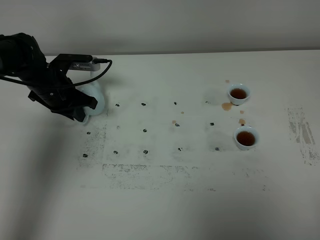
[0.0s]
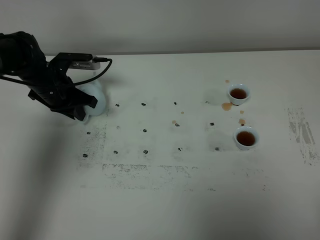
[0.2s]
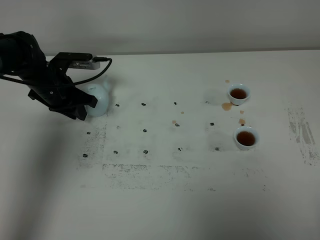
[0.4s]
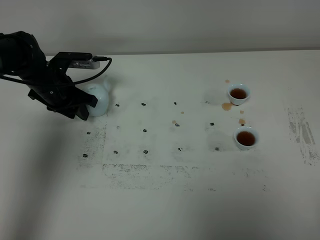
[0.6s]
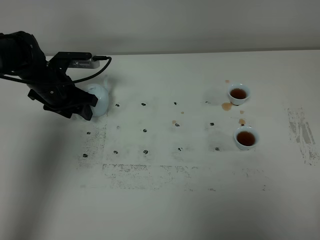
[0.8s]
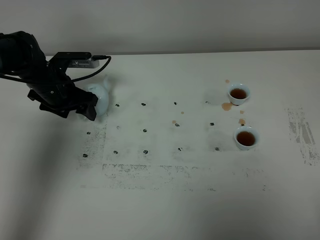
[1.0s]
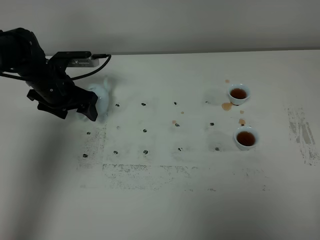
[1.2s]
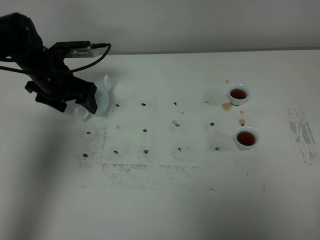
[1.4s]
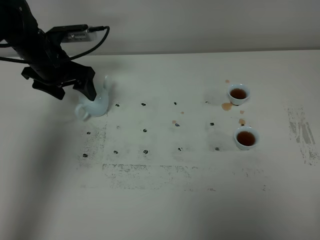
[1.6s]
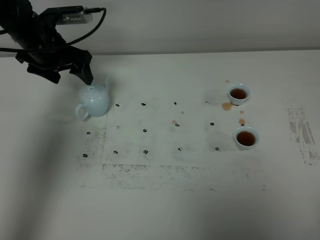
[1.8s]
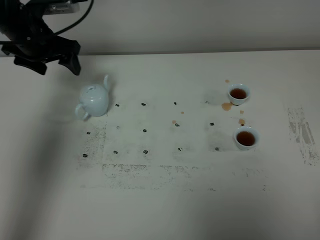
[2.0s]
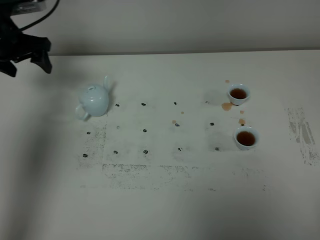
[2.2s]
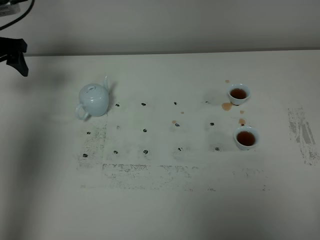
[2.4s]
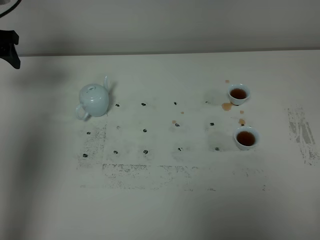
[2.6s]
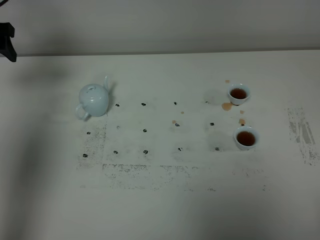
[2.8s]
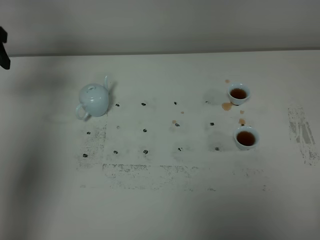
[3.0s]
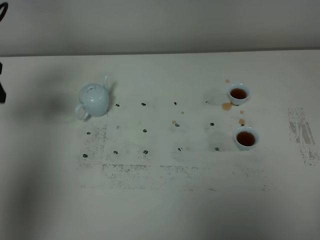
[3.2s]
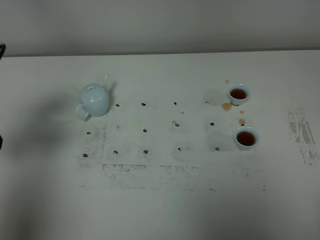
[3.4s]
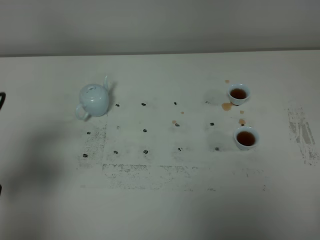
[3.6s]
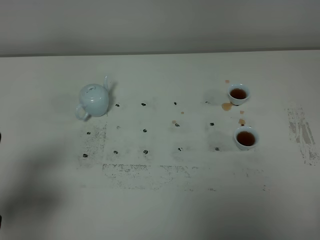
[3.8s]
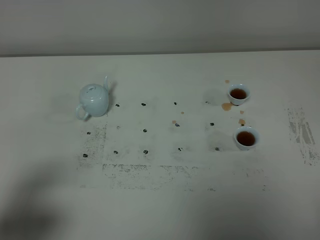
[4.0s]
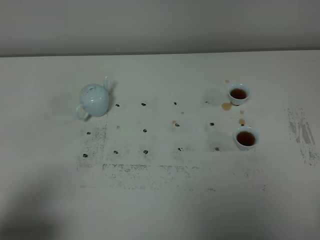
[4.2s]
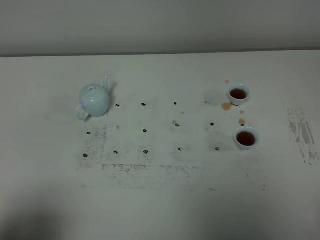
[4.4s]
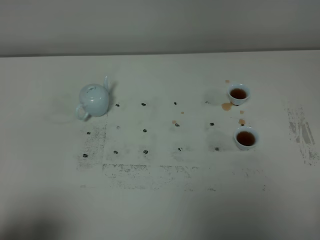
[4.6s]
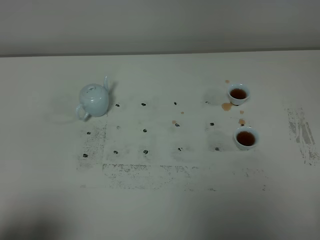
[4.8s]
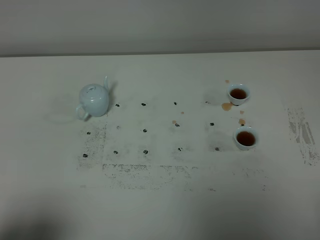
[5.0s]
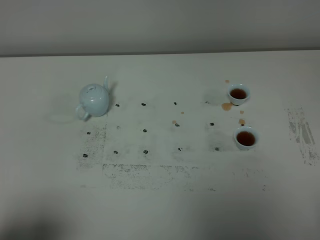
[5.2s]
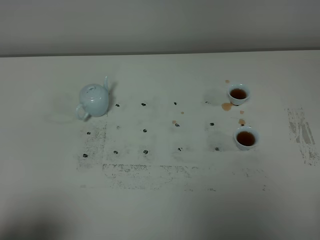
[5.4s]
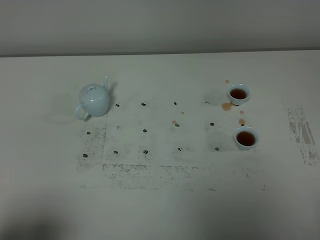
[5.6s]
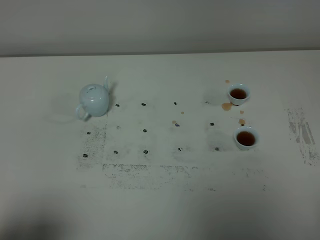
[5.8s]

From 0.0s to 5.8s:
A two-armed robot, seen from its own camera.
Task of the whole recording: grasp the blue porcelain teapot and pour the tea into the two blue porcelain teacups one by one, put the blue porcelain teapot back in its original place.
From 0.0s to 1.4s: The left gripper opens.
From 1.4s to 2.8s: The left gripper heads to the left and upward, covering approximately 15 cm.
From 2.8s to 4.4s: The left gripper goes roughly 40 cm backward.
From 4.4s to 5.8s: Both grippers stay about where they are.

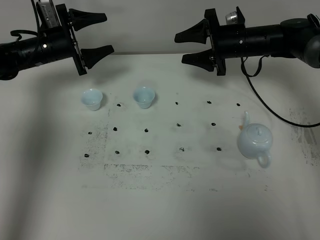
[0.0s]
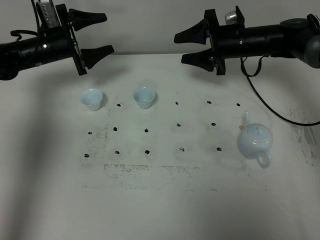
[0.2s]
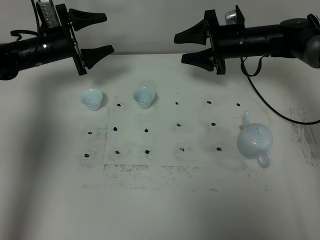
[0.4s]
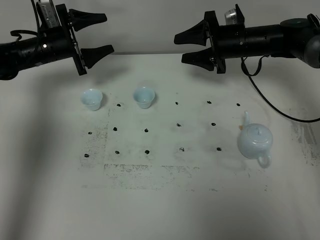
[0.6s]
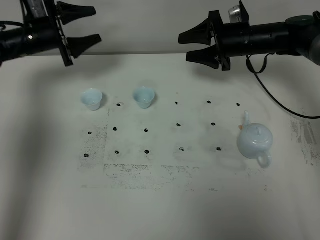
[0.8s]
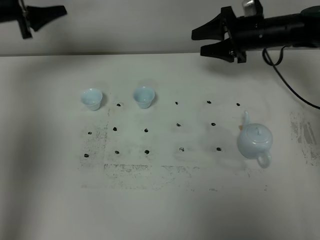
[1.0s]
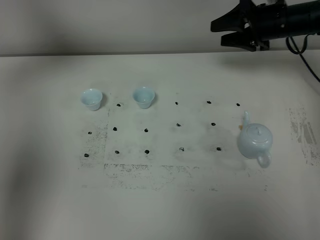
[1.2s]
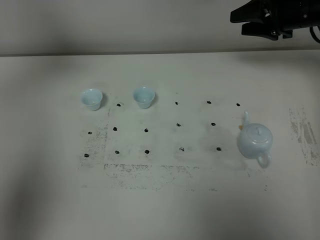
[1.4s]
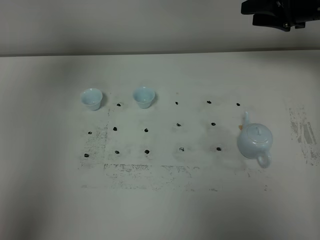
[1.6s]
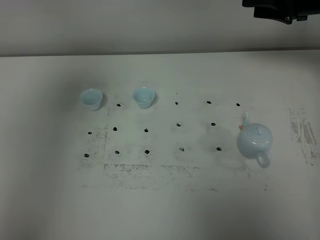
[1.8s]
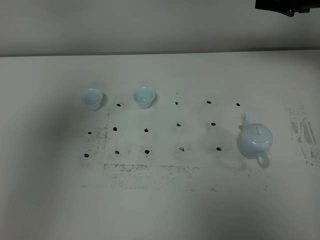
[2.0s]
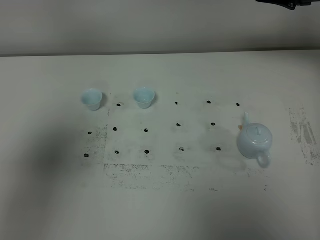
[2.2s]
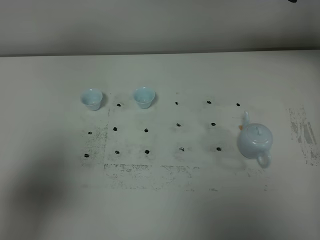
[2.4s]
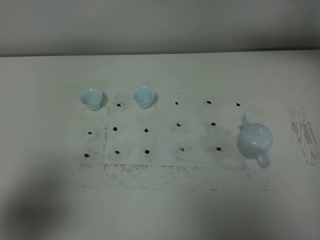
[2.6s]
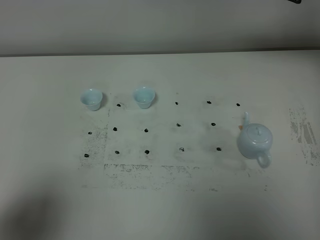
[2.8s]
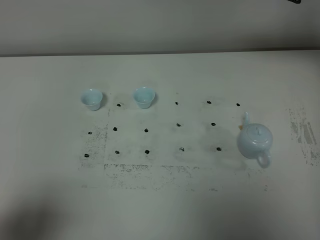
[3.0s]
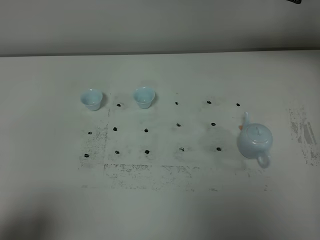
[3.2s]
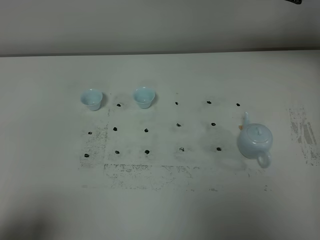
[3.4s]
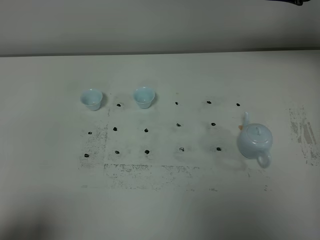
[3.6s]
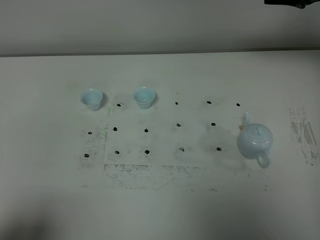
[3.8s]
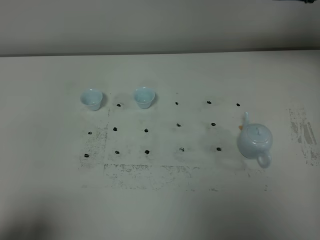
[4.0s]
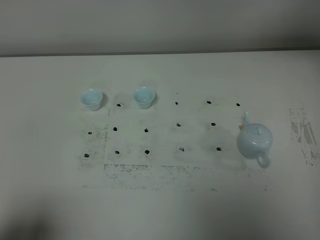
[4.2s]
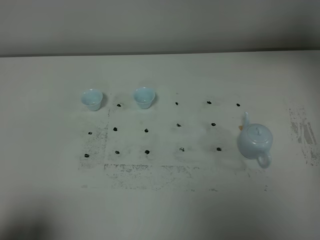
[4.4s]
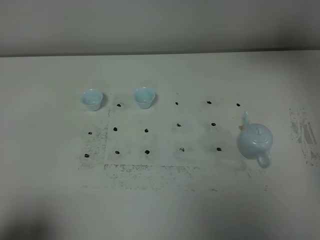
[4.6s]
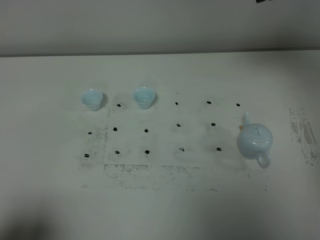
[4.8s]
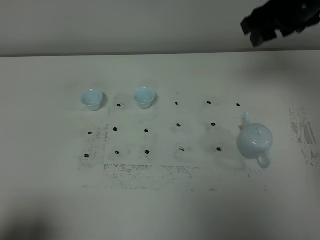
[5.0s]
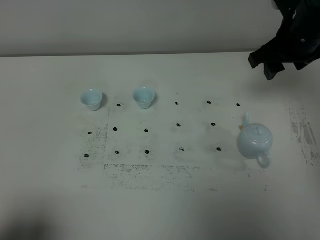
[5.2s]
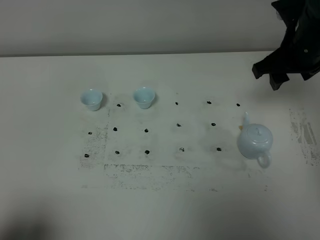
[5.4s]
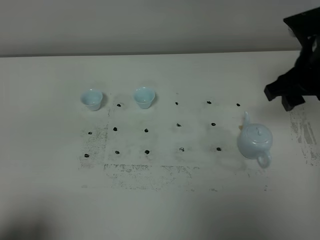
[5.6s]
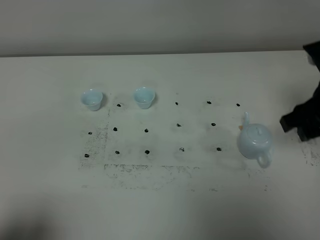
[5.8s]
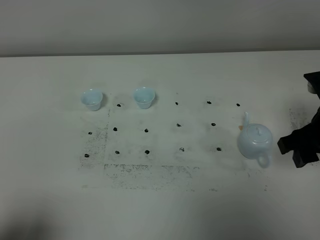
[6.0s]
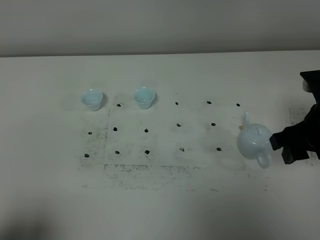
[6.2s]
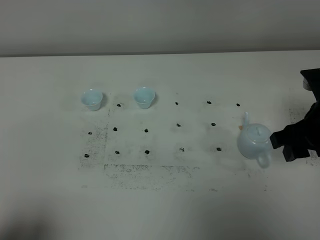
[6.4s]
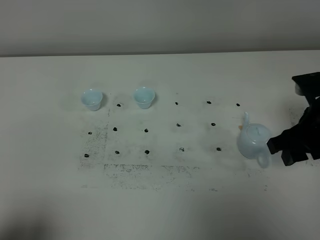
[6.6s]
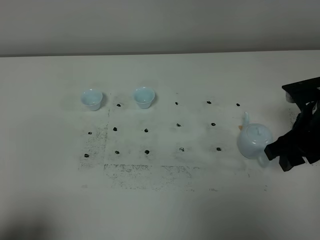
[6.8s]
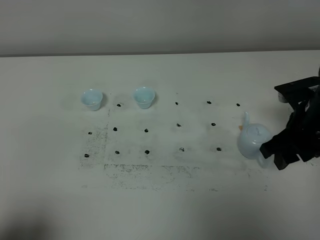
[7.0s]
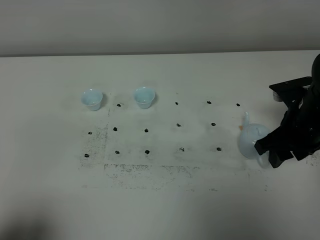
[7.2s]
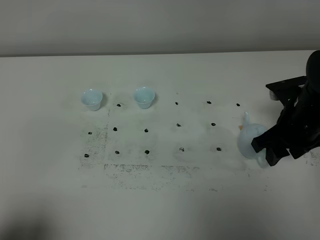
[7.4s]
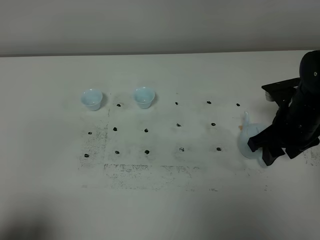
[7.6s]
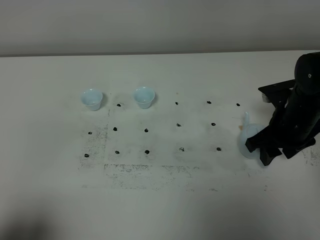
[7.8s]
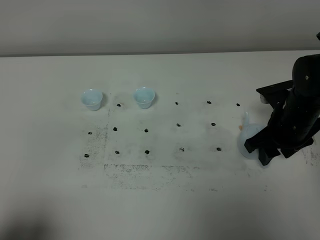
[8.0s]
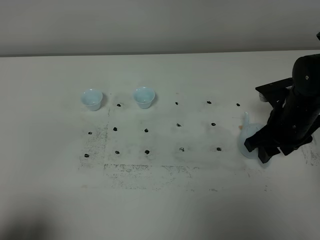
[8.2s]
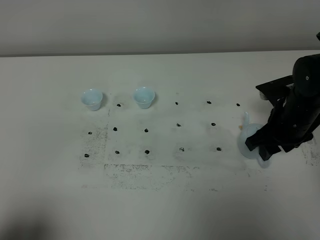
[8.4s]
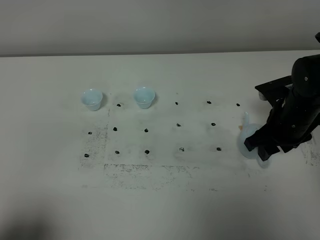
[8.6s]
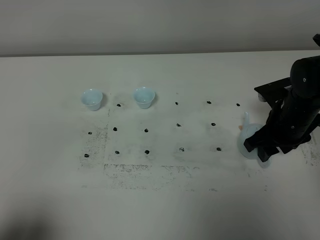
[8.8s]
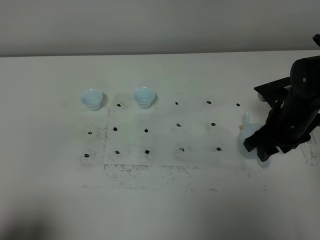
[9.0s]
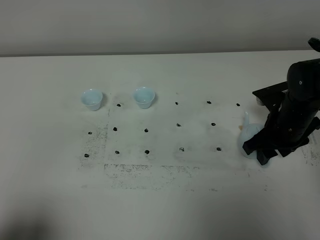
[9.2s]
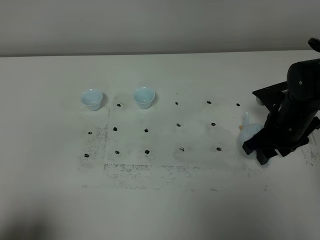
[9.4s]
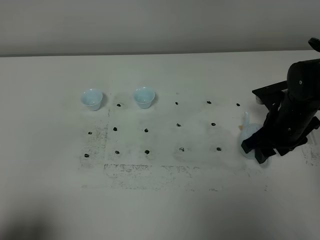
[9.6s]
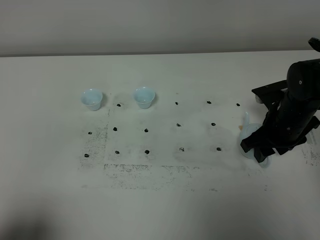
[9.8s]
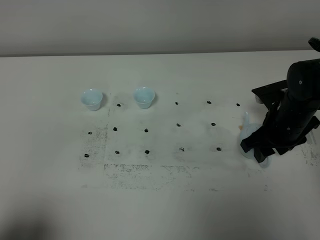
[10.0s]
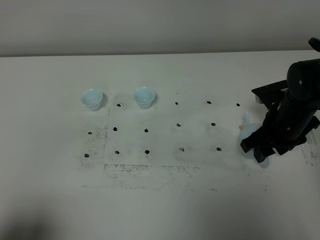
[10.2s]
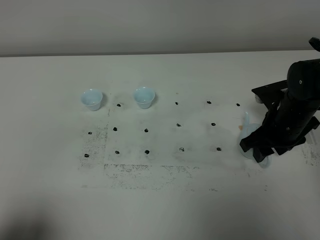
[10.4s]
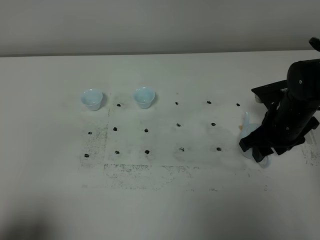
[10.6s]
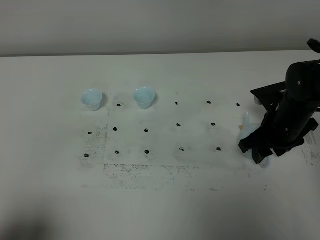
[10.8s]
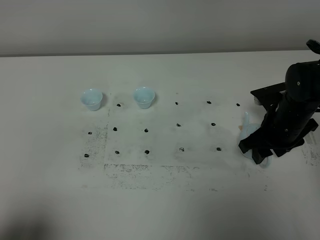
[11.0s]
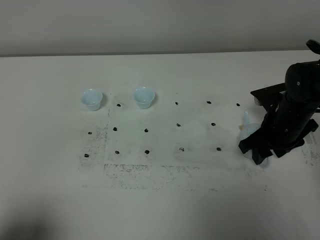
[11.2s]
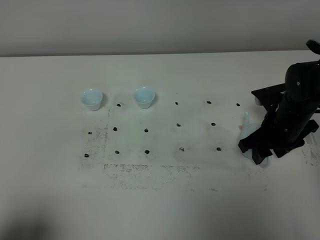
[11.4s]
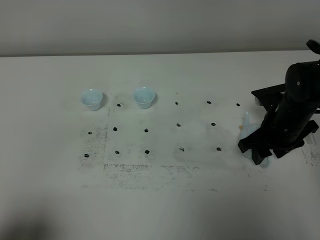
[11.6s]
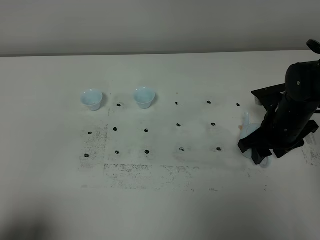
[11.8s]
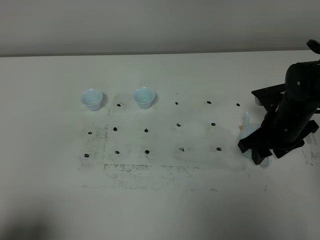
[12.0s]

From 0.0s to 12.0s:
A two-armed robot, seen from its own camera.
Task of the whole recording: grasp the blue porcelain teapot and pour the tea into the two blue porcelain teacups one by one, put the blue porcelain teapot back in its original place.
From 0.0s to 1.6s: The right gripper heads to the right and upward, covering roughly 15 cm, while the left gripper travels upward and backward by about 40 cm.
From 1.6s to 3.0s: The left gripper is displaced backward and downward by approximately 35 cm. The right gripper goes about 5 cm upward.
From 4.4s to 6.0s: The right gripper moves downward and backward, some 25 cm.
From 6.0s to 7.6s: The right gripper goes about 10 cm downward and forward.
From 7.6s to 9.0s: The grippers stay close to where they were, moving slightly.
From 9.0s to 10.4s: Neither gripper changes place.
From 10.4s to 12.0s: Both grippers stay put.

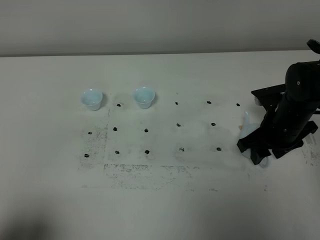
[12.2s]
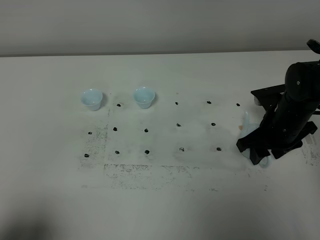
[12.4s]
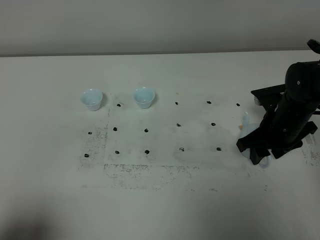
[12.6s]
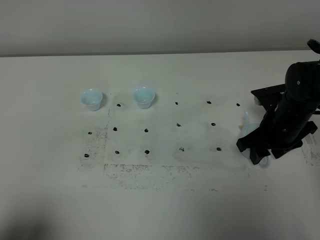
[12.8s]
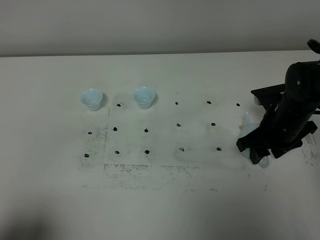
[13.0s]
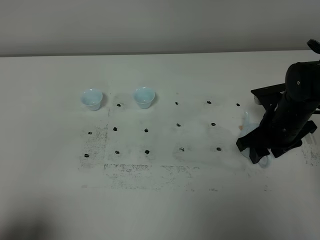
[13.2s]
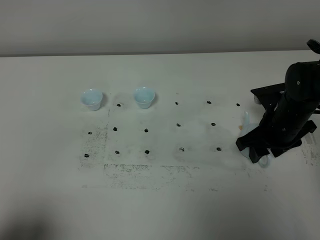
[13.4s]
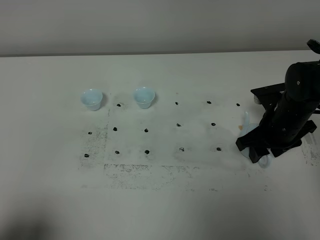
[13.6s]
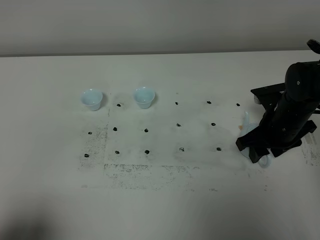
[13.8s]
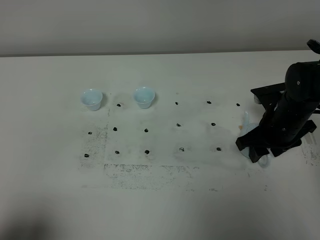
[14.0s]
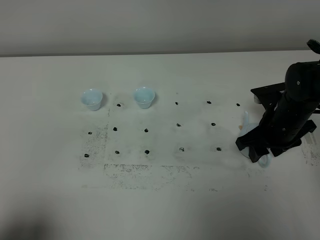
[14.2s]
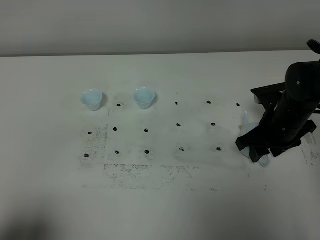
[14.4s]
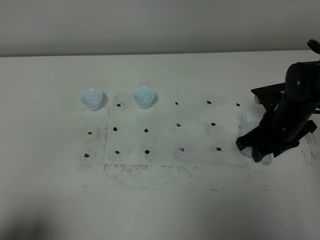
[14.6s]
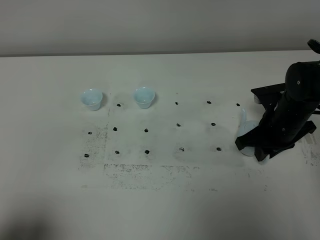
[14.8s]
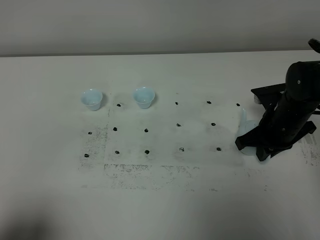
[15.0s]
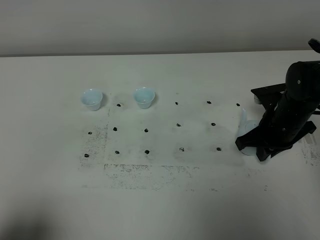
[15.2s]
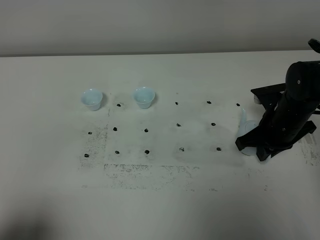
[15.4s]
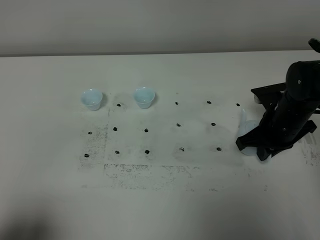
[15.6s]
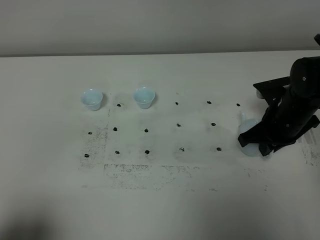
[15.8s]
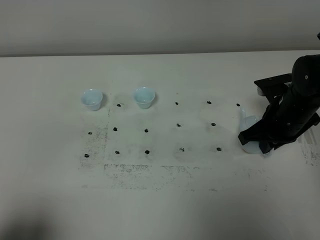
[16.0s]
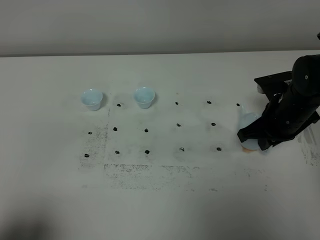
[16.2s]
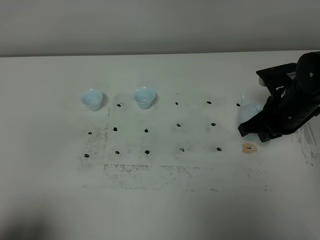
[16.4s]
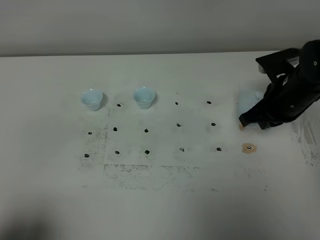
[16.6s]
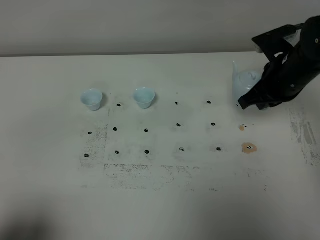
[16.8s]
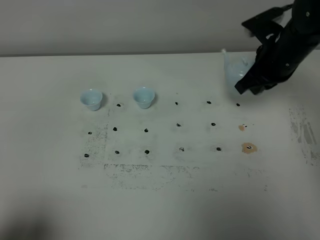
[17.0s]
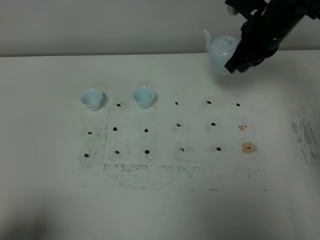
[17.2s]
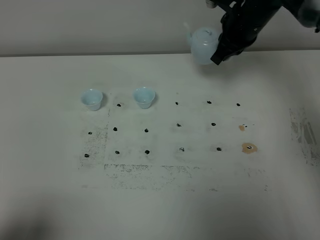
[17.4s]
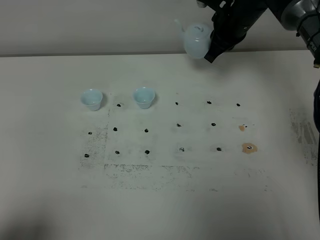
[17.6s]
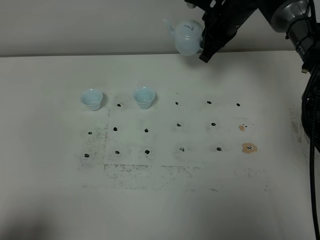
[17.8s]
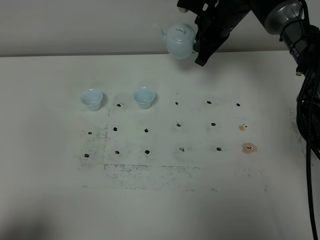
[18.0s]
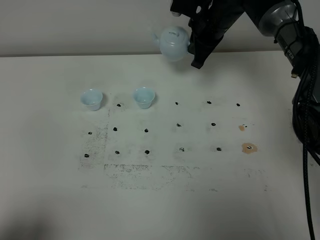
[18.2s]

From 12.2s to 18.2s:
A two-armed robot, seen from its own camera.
Task of the whole recording: grasp the blue porcelain teapot and pour the tea into the two blue porcelain teacups one by one, put the blue porcelain teapot back in its original place.
Step, from 12.2s to 16.2s: Pick up the teapot with the right gripper.
From 12.2s to 13.8s: The two grippers keep their place.
From 13.8s to 15.2s: The right gripper closes up.
From 15.2s to 16.6s: The right gripper heads upward, covering about 5 cm.
From 16.6s to 18.2s: The right gripper shifts some 20 cm forward and to the left.
